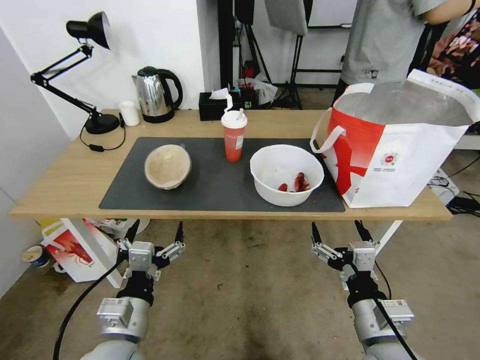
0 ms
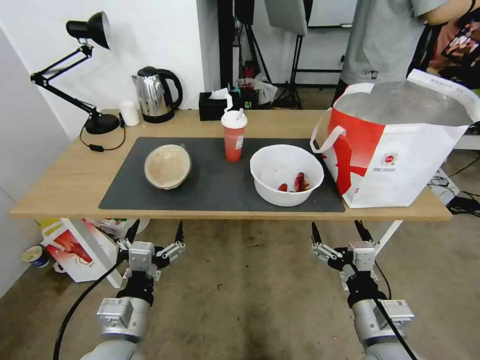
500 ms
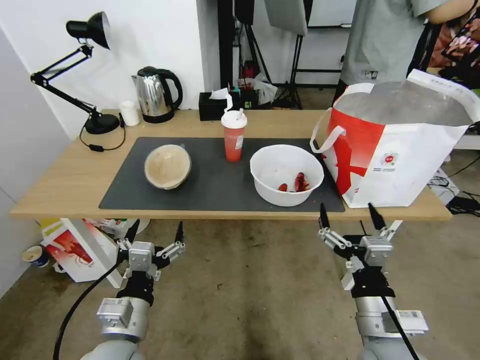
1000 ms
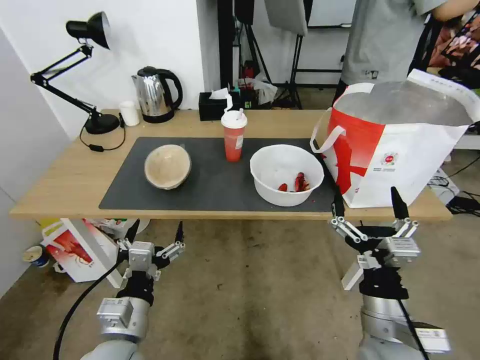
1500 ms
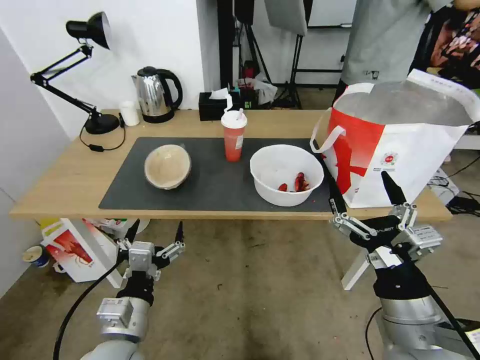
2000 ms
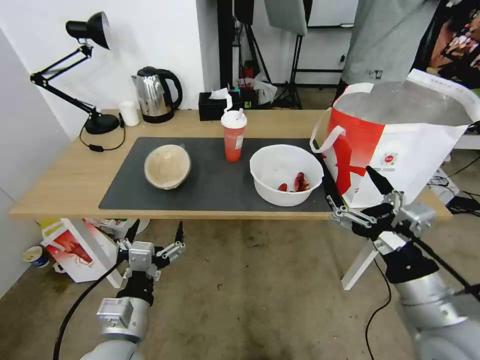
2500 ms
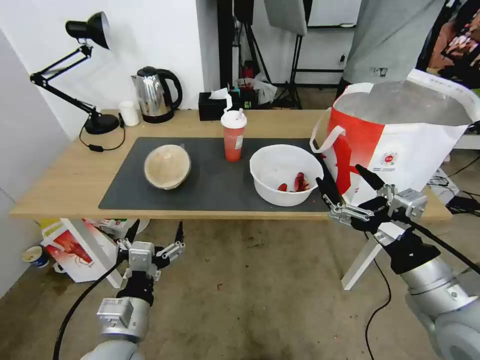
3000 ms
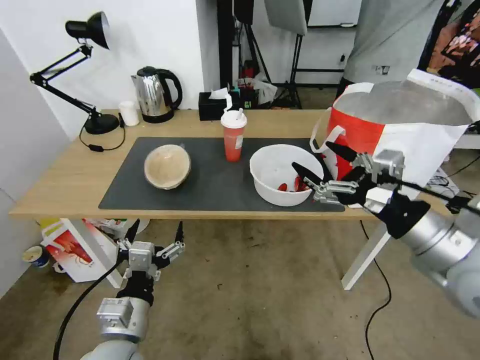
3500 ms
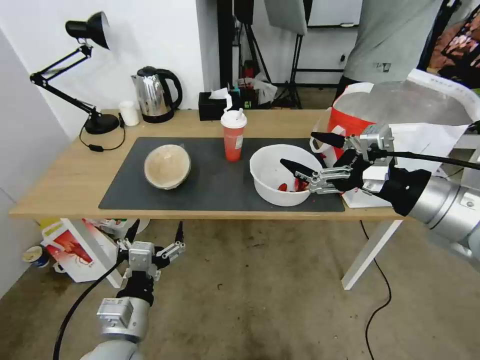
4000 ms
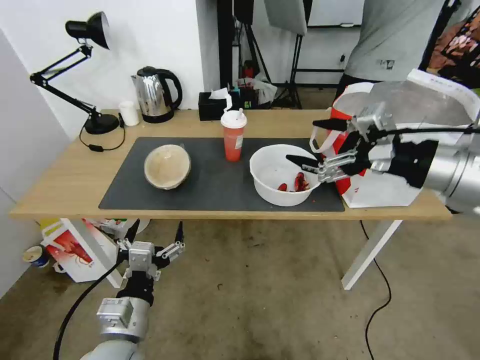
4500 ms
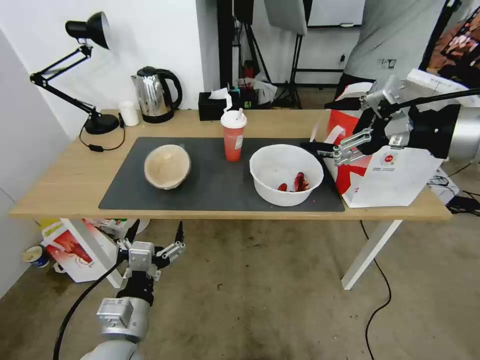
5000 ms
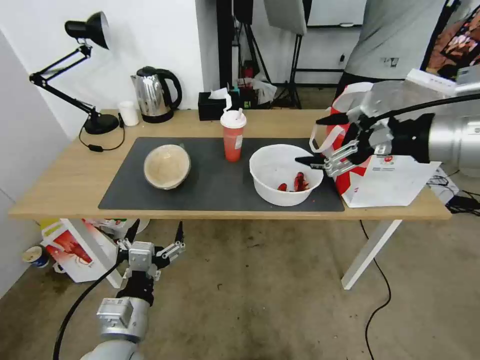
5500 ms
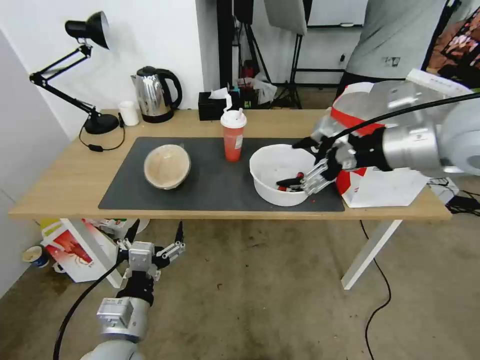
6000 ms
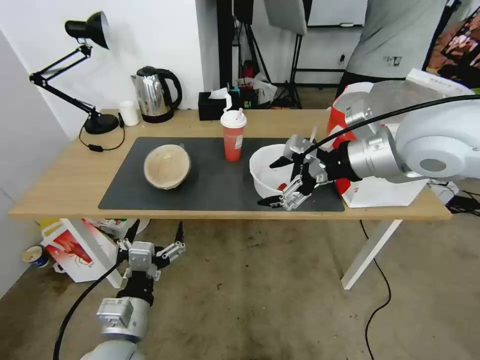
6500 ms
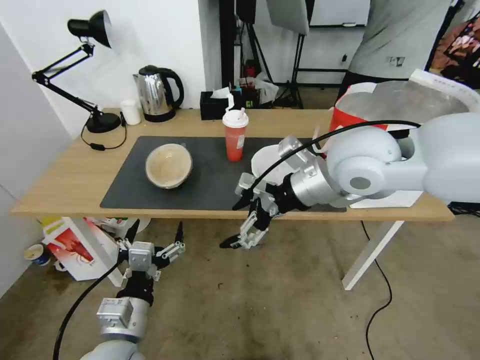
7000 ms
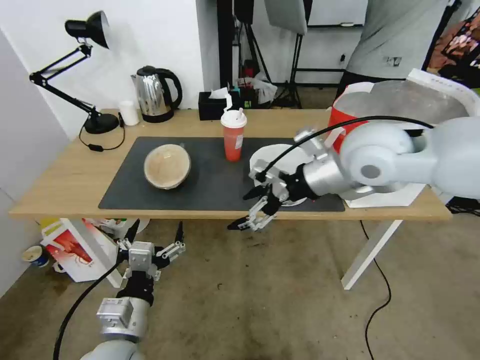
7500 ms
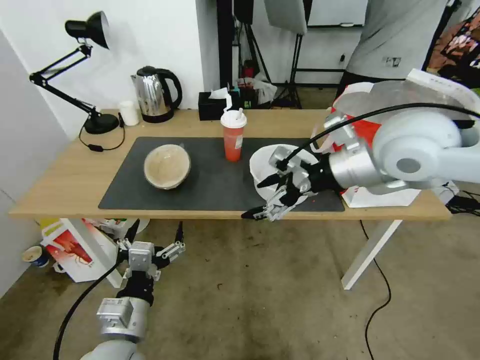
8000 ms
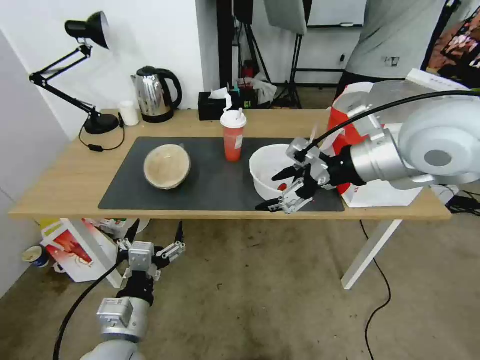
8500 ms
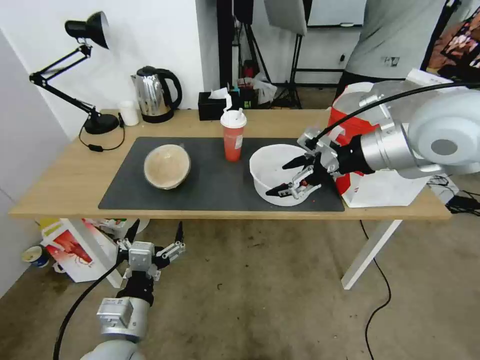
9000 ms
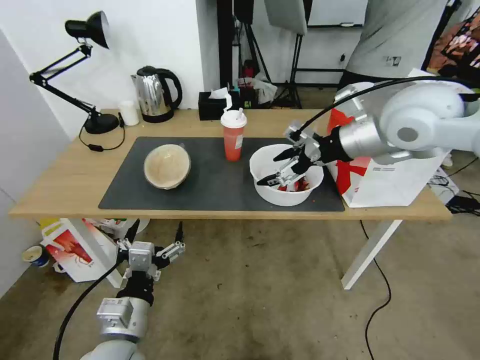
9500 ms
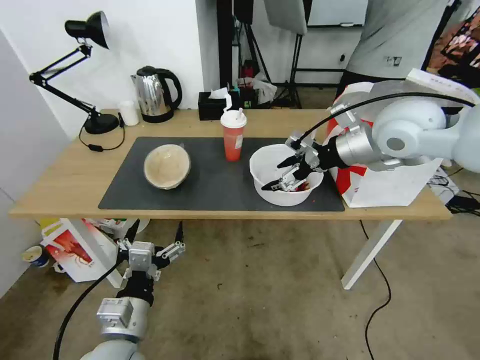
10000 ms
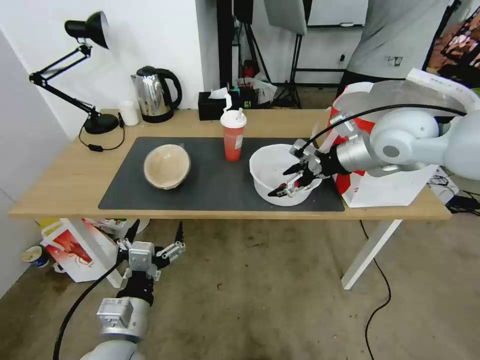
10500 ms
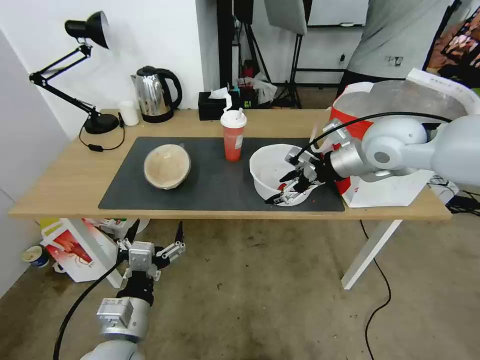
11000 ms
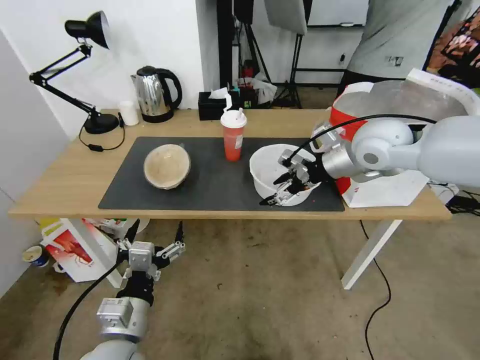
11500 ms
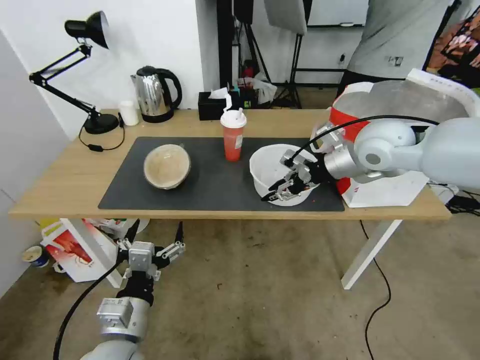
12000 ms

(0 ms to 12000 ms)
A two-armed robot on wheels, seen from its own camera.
Task of the whole recording: Pick up the trash from the table and place it into the takeout bag.
2000 ms - 4000 ms: The right gripper moves upward and forward, approximately 20 cm.
4000 ms - 6000 ms: The right gripper shifts roughly 10 cm forward and upward.
6000 ms - 8000 ms: The right gripper heads to the left, covering some 5 cm.
8000 ms - 10000 ms: The right gripper heads forward, covering approximately 5 cm.
10000 ms - 12000 ms: The right gripper ends up some 5 cm from where it was, and closes.

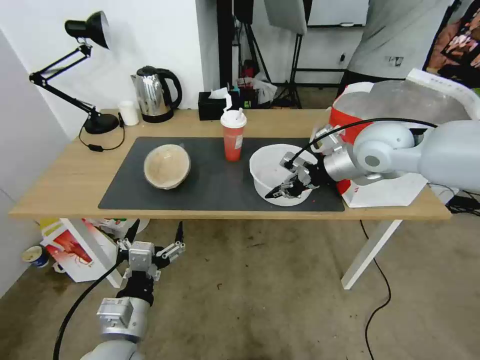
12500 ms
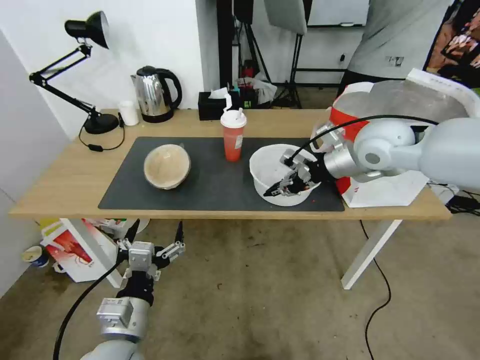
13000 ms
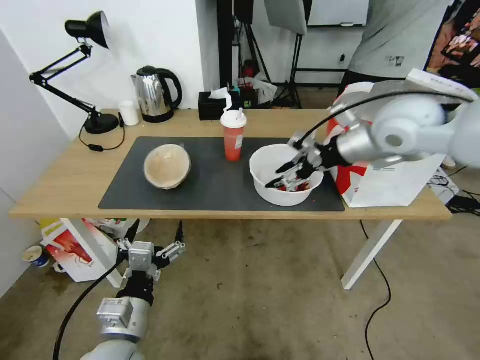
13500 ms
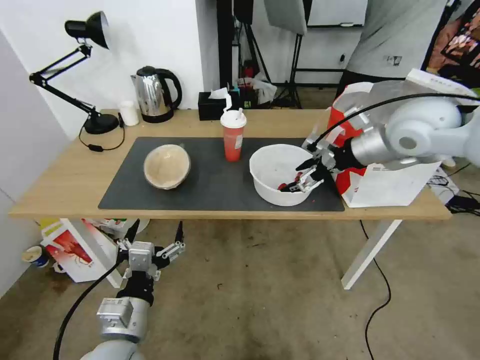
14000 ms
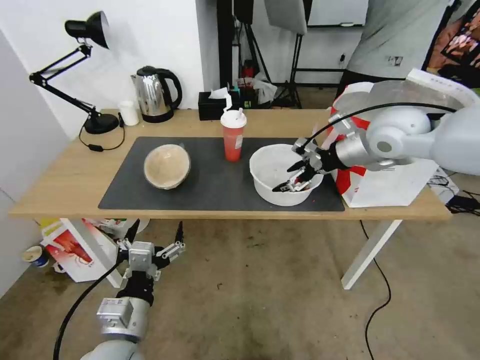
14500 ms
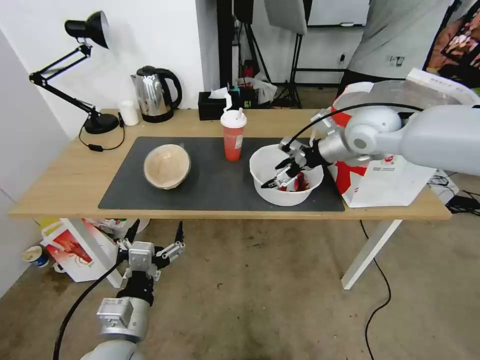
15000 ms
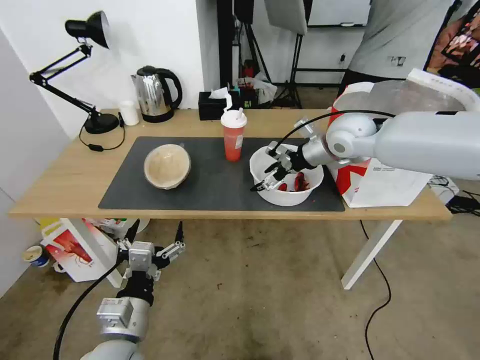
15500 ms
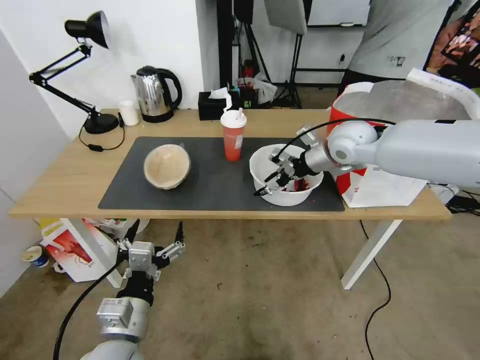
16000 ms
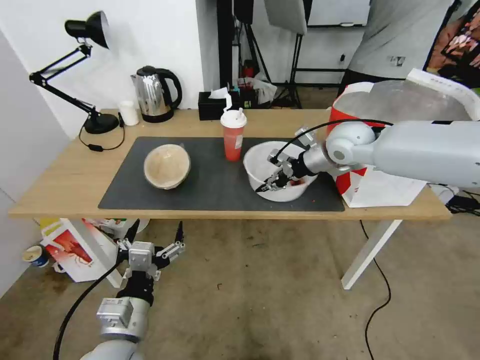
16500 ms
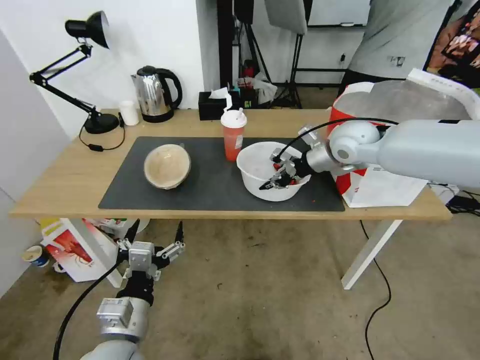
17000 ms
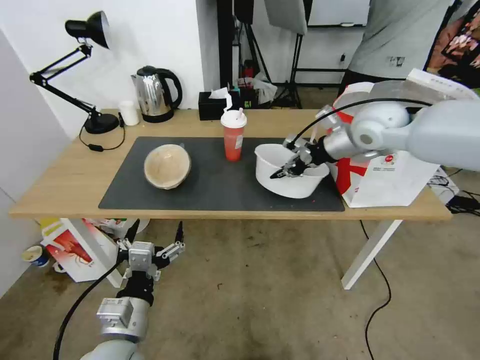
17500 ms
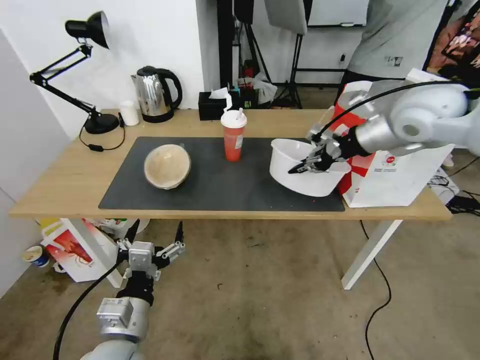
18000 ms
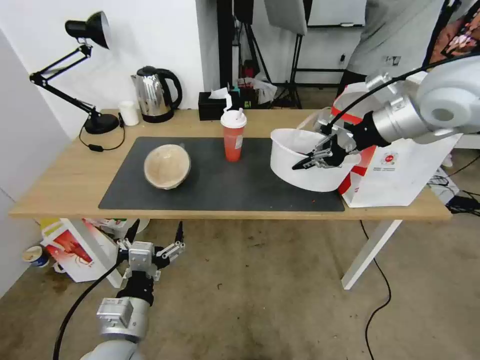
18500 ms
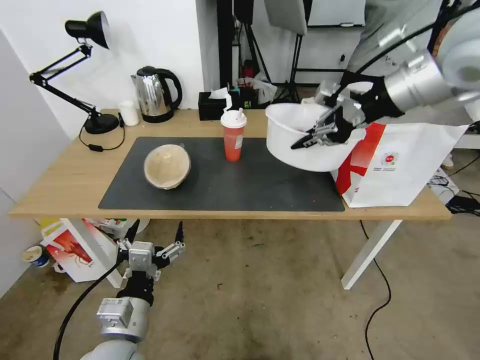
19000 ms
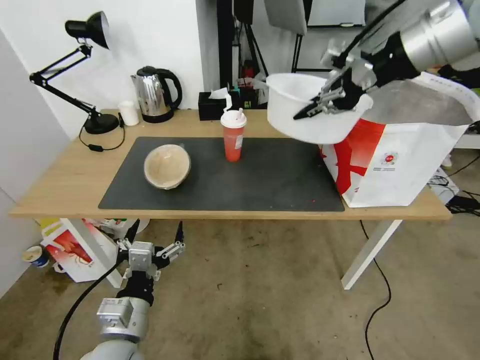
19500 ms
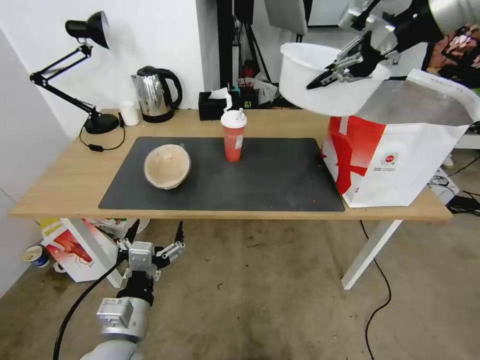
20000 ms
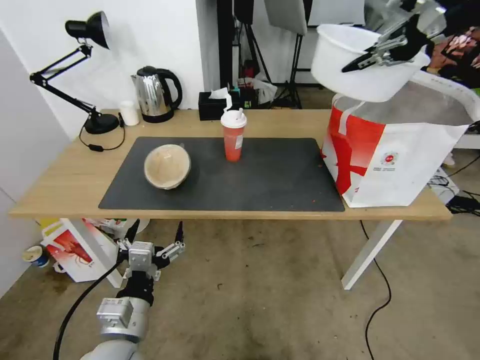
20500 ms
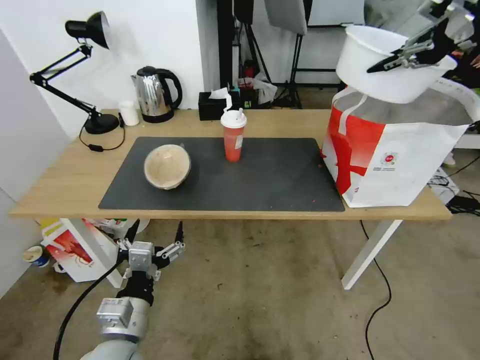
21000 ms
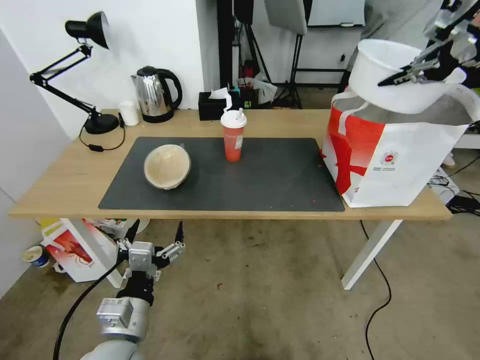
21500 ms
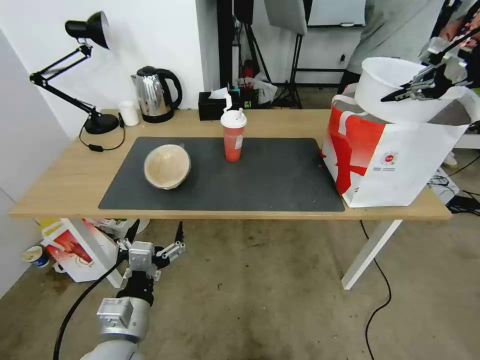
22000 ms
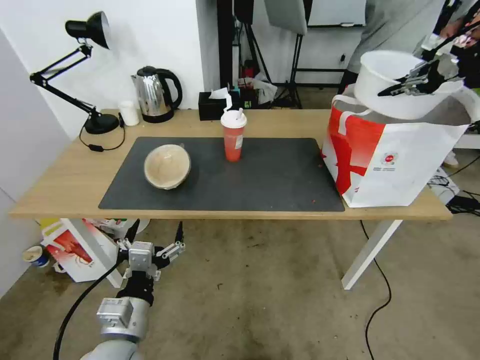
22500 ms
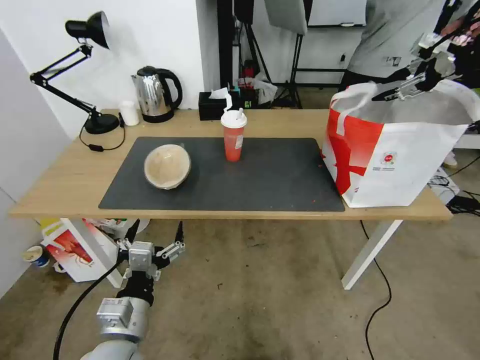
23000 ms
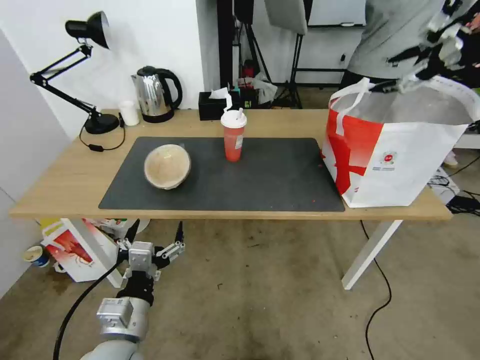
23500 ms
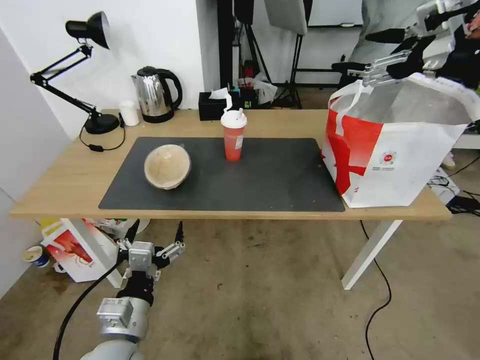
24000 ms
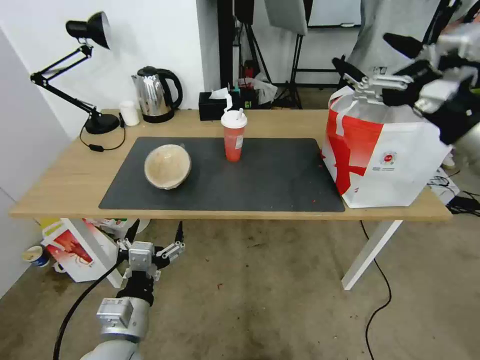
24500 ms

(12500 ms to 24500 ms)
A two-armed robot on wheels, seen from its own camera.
Task of the whole recording: Pick up the trash from the table and place it into the takeout bag.
12500 ms - 14500 ms: The right gripper opens its fingers.
14500 ms - 16500 ms: The right gripper goes about 5 cm downward, and closes up.
16500 ms - 18500 ms: The right gripper goes about 20 cm upward, backward and to the right.
18500 ms - 20500 ms: The right gripper travels upward by roughly 15 cm.
20500 ms - 22500 ms: The right gripper moves to the right and downward, some 10 cm.
22500 ms - 24500 ms: The right gripper moves backward, to the left and downward, approximately 30 cm, and opens its fingers.

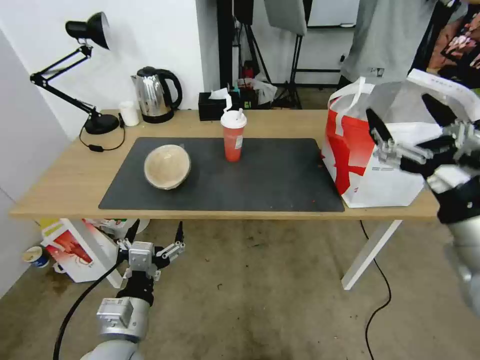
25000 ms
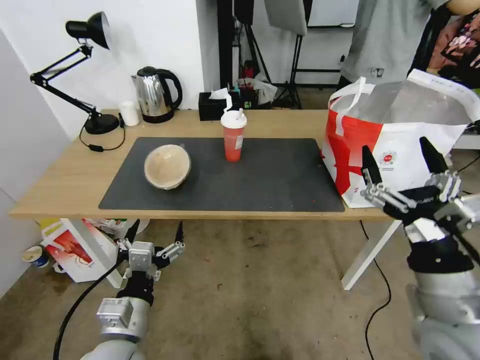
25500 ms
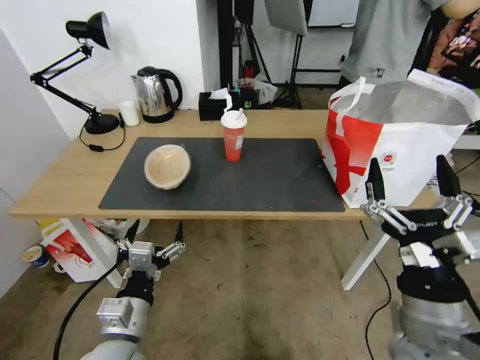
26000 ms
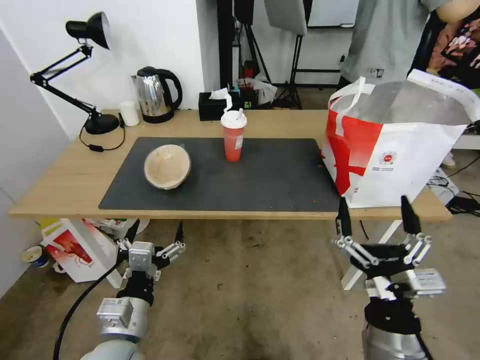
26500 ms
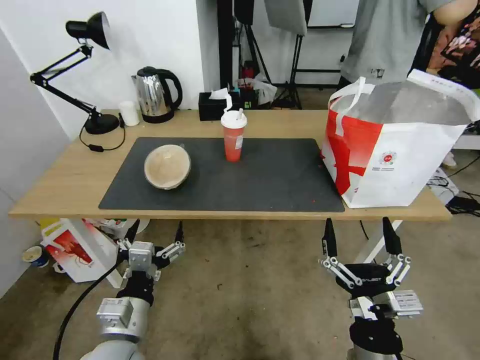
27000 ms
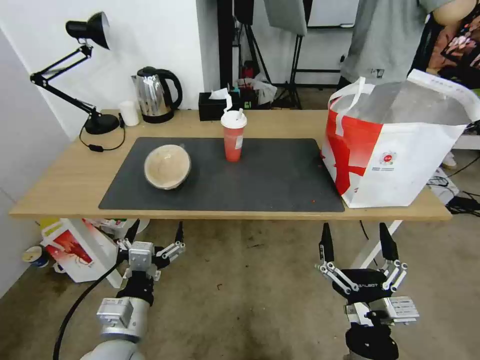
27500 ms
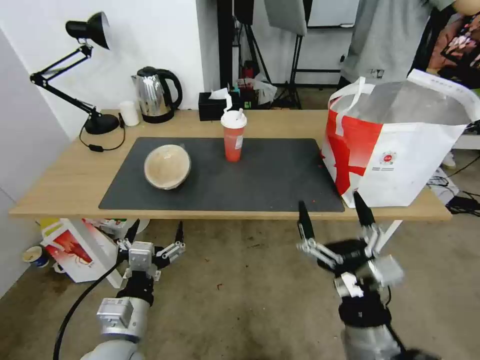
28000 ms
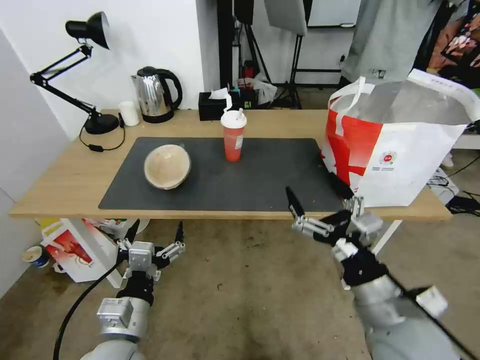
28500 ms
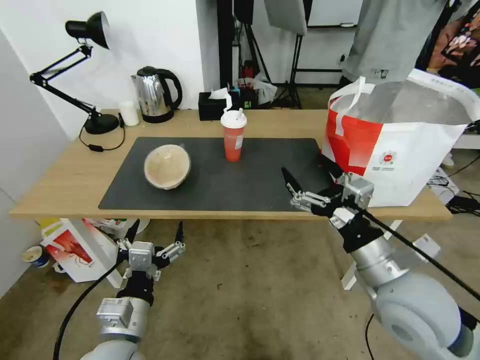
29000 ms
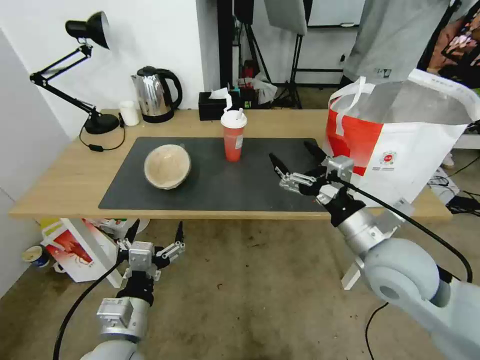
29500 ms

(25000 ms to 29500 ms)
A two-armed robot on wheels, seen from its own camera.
Task of the whole recording: Pick up the trash from the table and place it into the takeout bag.
25000 ms - 27000 ms: The right gripper is displaced downward, to the left and backward by roughly 25 cm.
27000 ms - 29500 ms: The right gripper heads forward and upward, covering roughly 20 cm.
